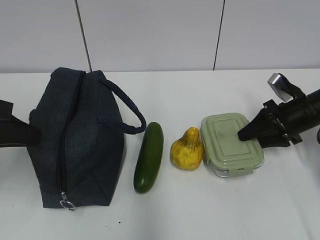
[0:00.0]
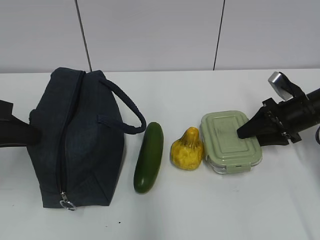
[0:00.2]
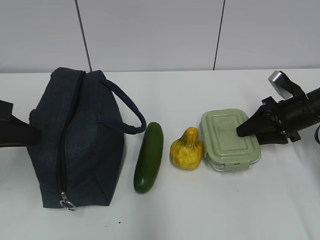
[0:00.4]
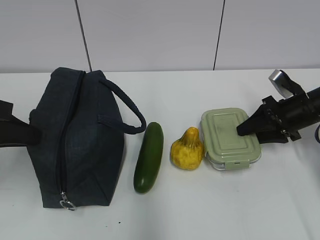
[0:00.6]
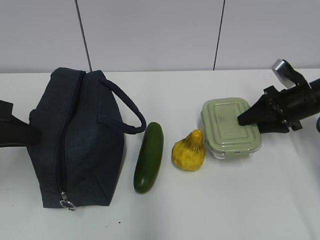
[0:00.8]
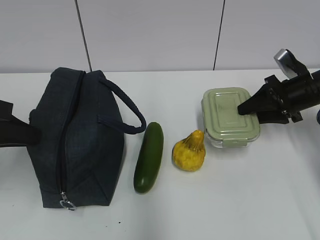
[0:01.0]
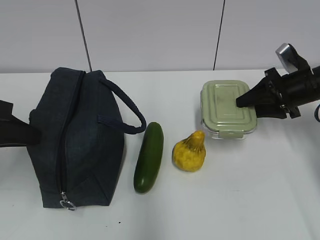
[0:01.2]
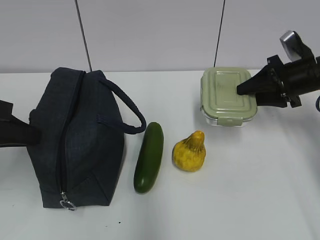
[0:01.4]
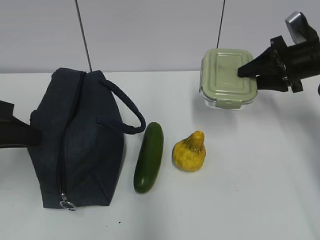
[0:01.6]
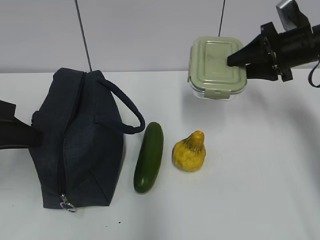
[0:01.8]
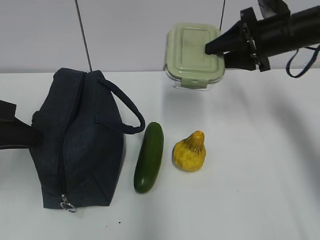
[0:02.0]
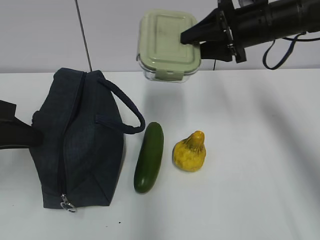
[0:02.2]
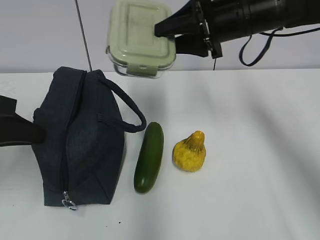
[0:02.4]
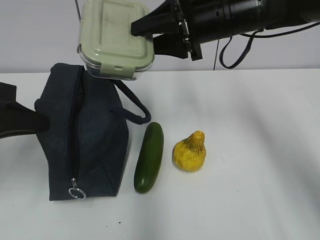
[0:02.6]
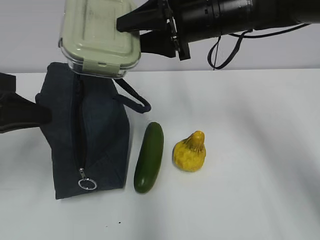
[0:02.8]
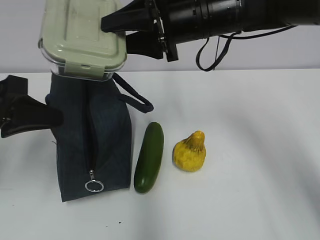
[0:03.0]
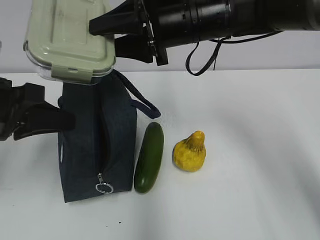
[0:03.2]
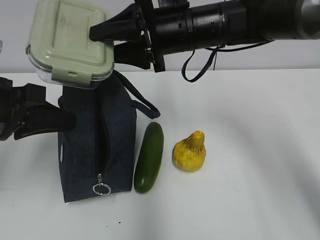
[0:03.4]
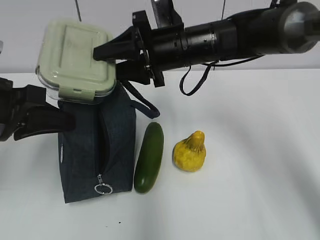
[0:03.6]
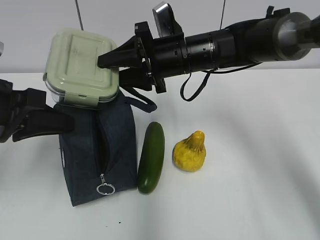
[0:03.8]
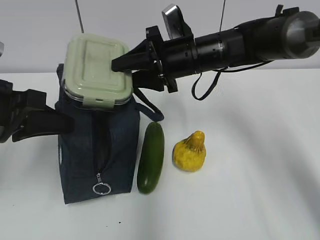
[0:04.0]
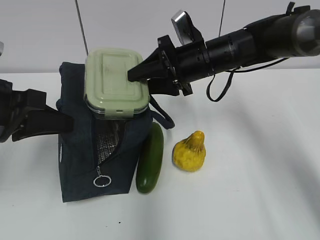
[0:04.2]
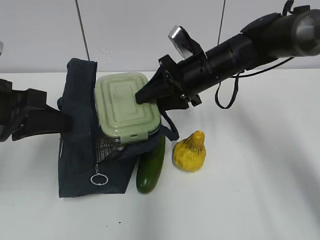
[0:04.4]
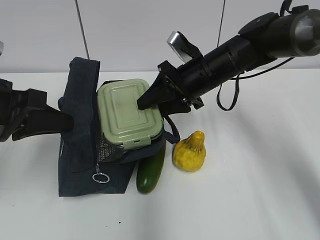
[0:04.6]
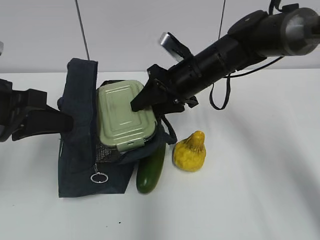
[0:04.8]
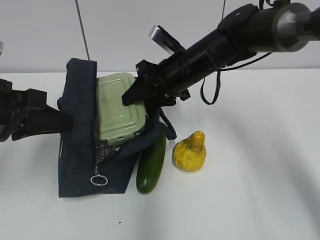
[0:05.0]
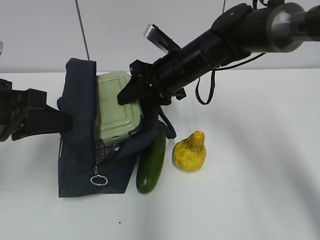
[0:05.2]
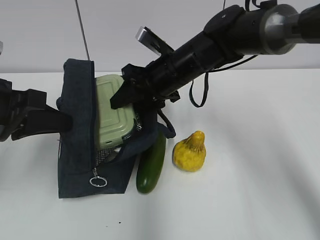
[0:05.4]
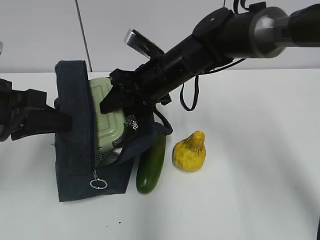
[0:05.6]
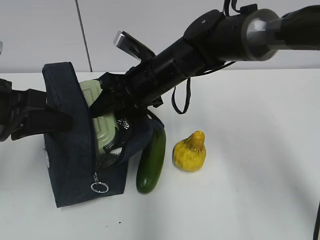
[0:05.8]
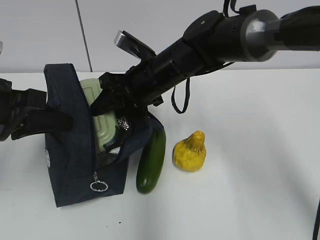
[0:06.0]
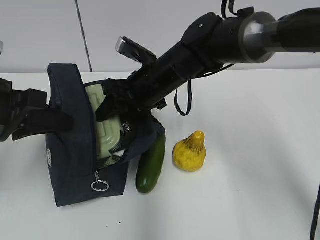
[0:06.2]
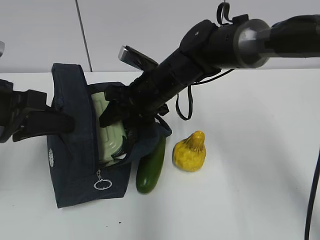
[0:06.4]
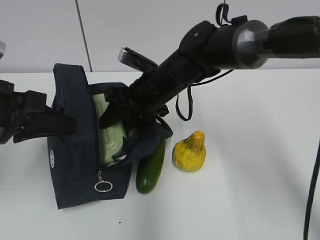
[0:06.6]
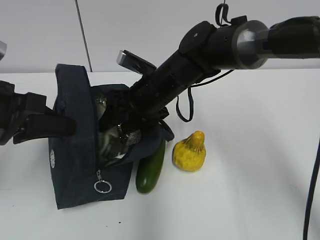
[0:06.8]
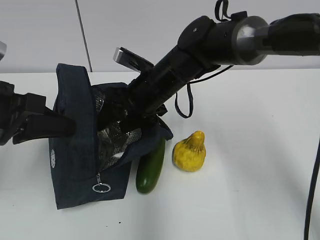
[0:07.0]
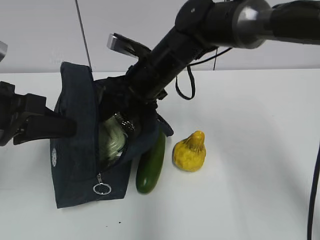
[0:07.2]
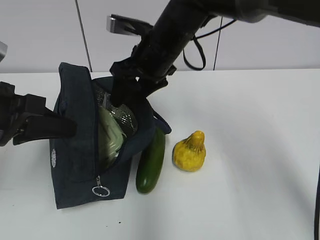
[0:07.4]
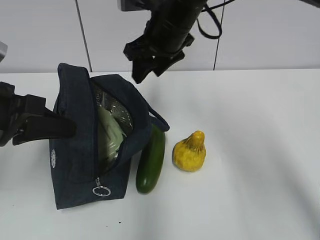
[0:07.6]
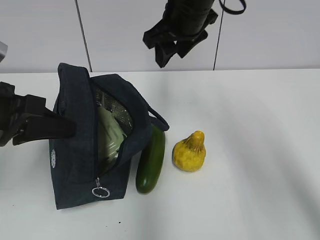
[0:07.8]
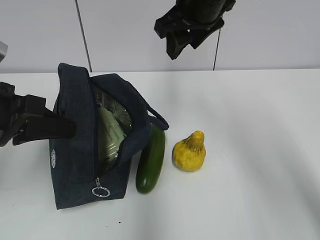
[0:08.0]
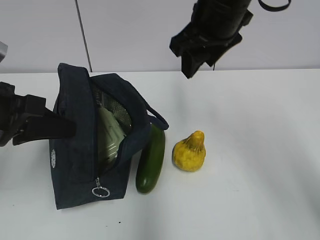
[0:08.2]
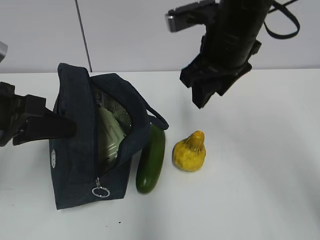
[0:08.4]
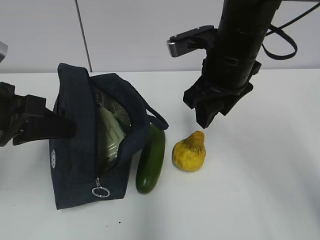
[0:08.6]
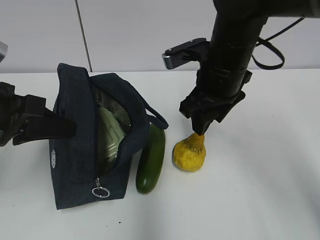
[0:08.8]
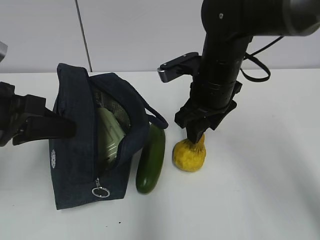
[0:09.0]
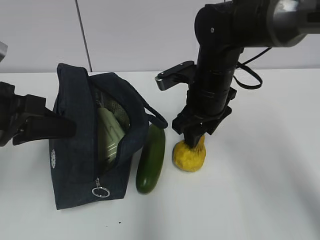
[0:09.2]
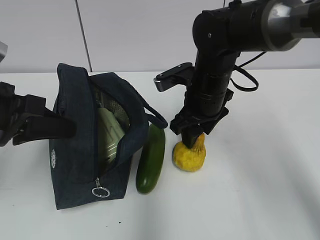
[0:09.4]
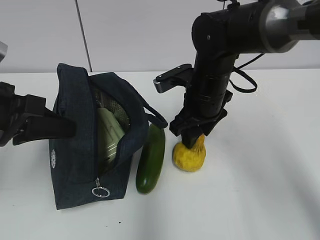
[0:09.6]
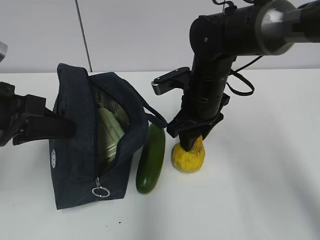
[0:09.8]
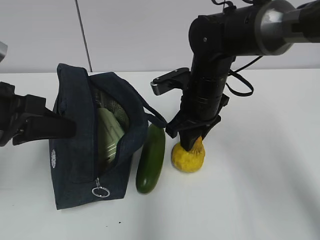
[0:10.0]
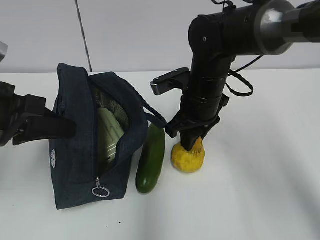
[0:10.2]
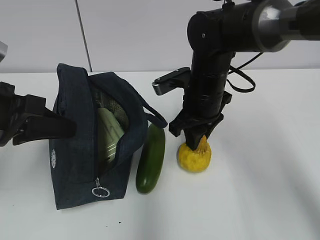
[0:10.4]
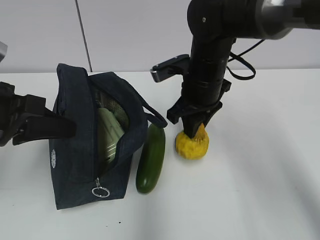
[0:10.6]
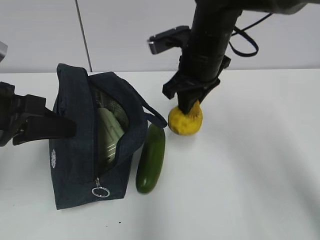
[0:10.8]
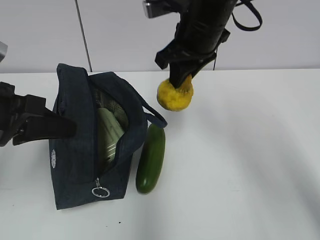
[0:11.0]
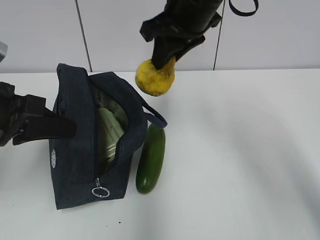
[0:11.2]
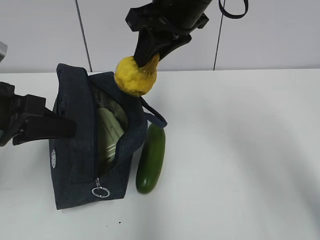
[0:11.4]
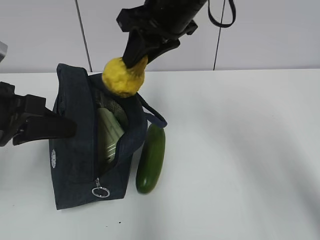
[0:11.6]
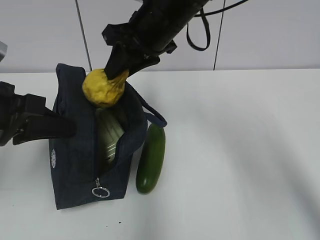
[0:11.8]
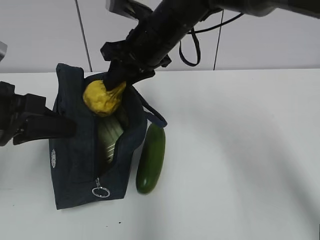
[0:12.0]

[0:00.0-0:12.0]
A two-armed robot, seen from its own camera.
Step, 0:04.0 to 0:07.2: Place it into the bag with your right hand.
Step, 0:07.4 to 0:10.0: Grab the pear with your right hand.
0:00.0 to 0:01.6: The right gripper goes roughly 10 cm upward.
0:01.6 to 0:03.0: The right gripper travels to the left and upward by about 25 cm.
0:03.0 to 0:04.4: The right gripper shifts some 10 cm downward.
0:04.4 to 0:06.0: The right gripper goes some 10 cm to the left.
0:06.0 to 0:07.6: The right gripper moves upward, approximately 10 cm.
0:07.6 to 0:09.0: The right gripper travels downward, backward and to the right by roughly 10 cm.
0:09.0 to 0:10.4: The right gripper closes up.
0:10.4 to 0:12.0: The right gripper shifts some 10 cm upward and to the left.

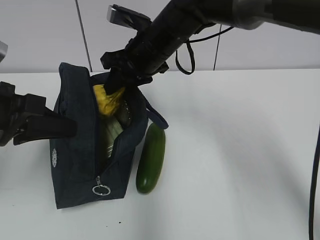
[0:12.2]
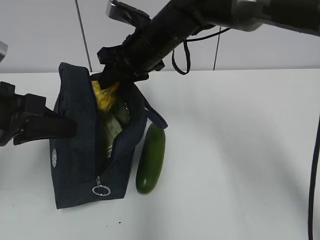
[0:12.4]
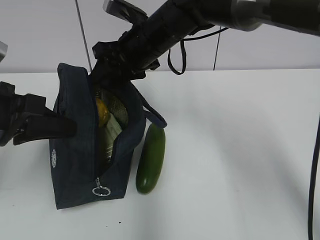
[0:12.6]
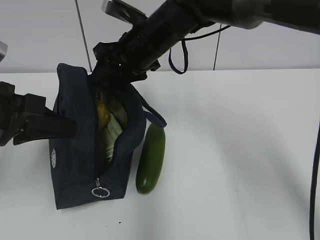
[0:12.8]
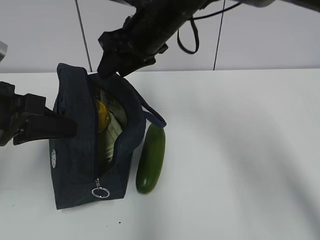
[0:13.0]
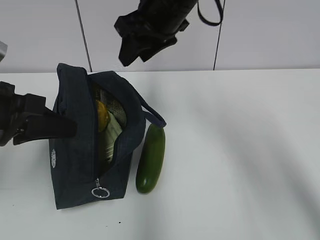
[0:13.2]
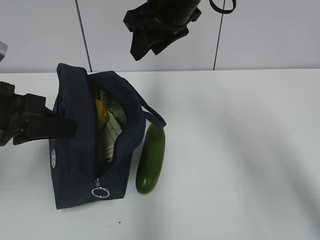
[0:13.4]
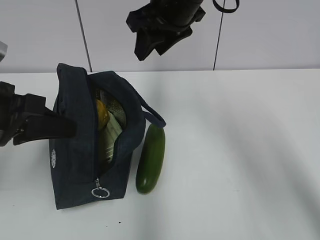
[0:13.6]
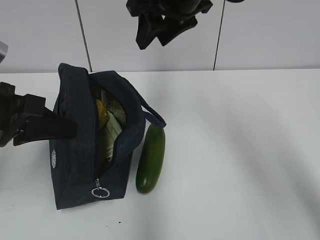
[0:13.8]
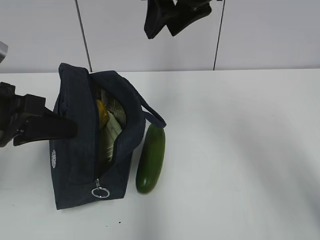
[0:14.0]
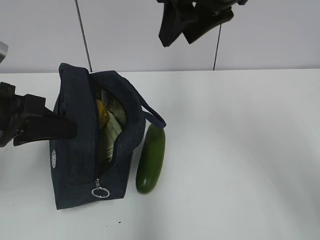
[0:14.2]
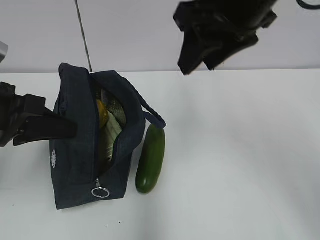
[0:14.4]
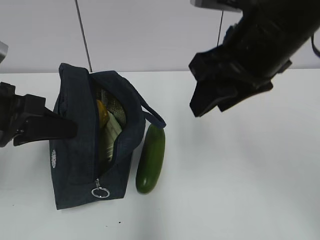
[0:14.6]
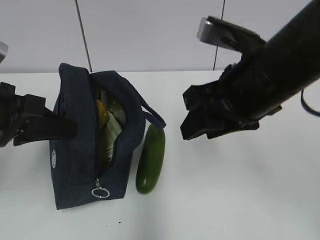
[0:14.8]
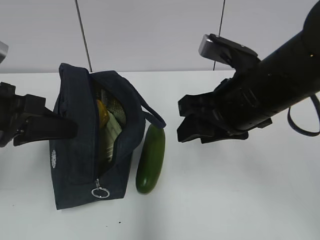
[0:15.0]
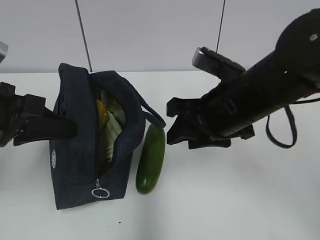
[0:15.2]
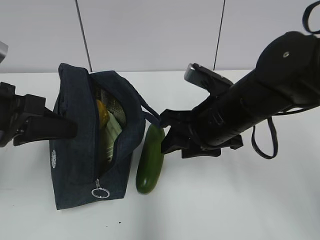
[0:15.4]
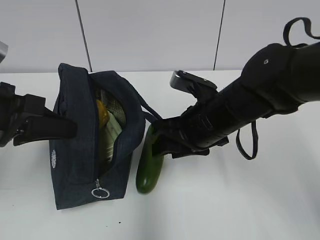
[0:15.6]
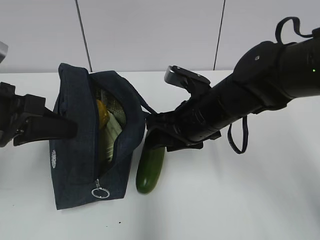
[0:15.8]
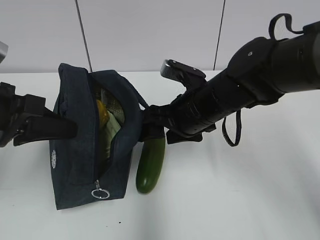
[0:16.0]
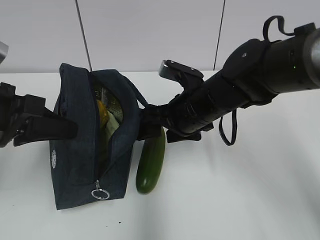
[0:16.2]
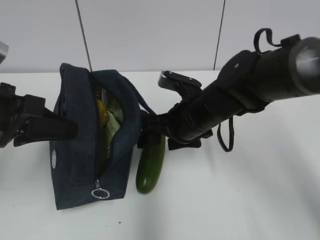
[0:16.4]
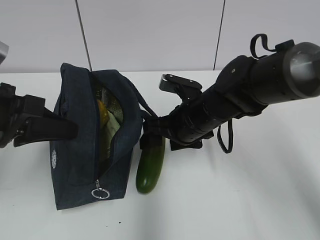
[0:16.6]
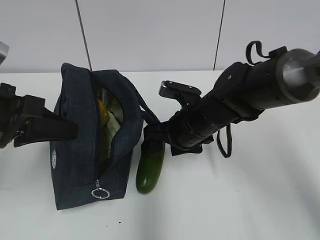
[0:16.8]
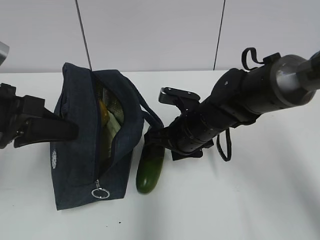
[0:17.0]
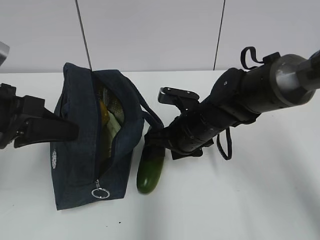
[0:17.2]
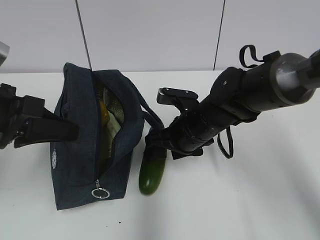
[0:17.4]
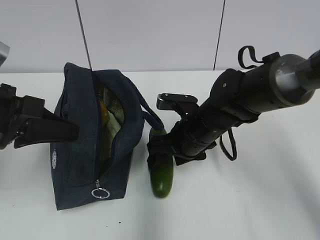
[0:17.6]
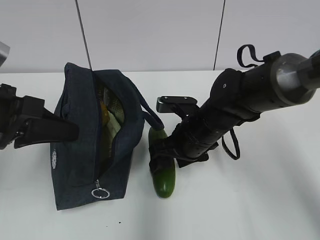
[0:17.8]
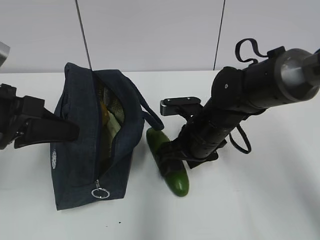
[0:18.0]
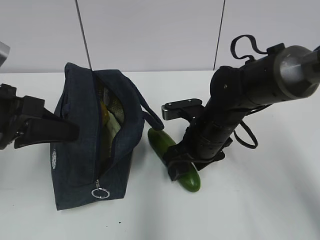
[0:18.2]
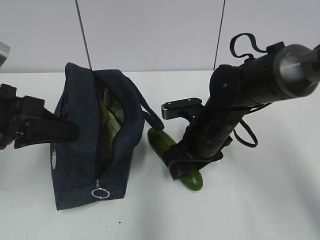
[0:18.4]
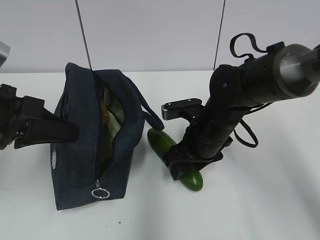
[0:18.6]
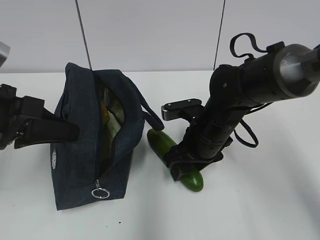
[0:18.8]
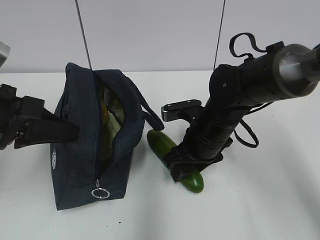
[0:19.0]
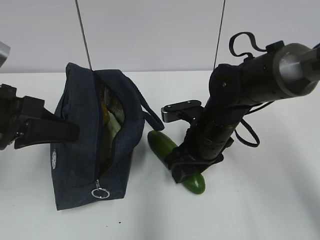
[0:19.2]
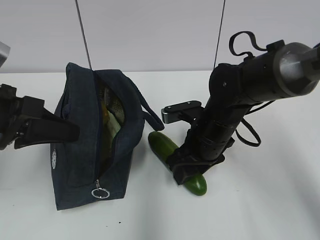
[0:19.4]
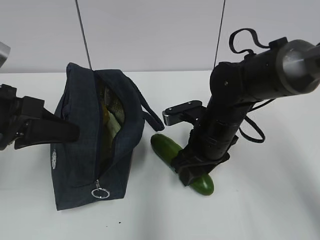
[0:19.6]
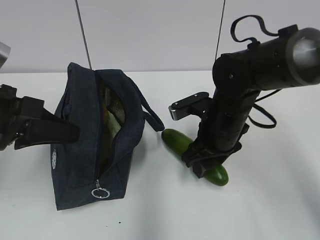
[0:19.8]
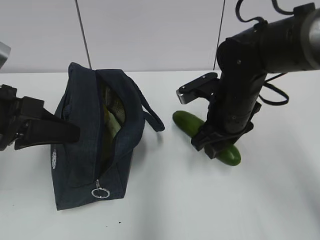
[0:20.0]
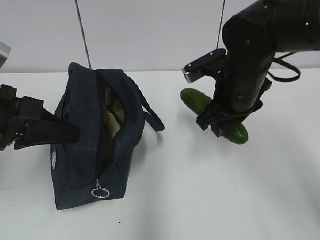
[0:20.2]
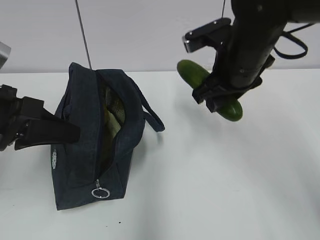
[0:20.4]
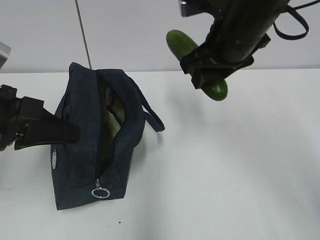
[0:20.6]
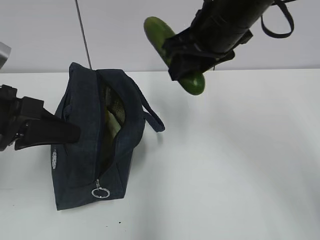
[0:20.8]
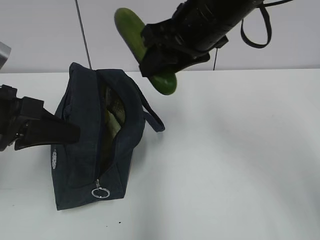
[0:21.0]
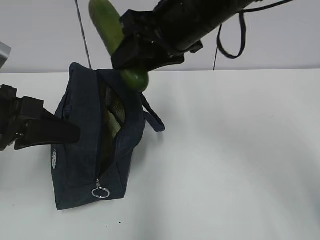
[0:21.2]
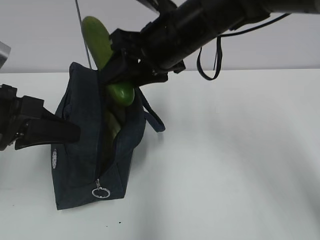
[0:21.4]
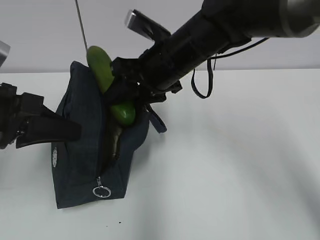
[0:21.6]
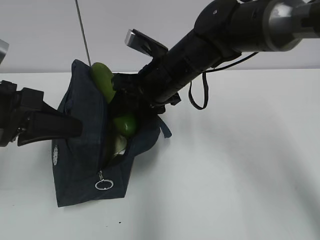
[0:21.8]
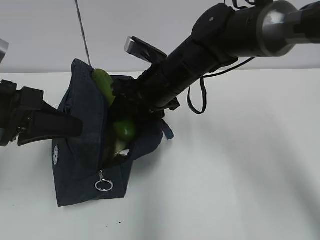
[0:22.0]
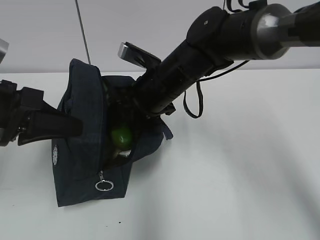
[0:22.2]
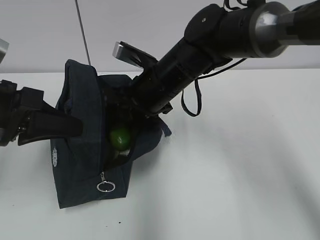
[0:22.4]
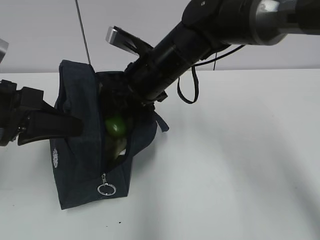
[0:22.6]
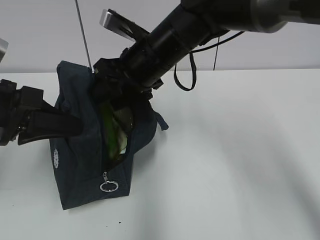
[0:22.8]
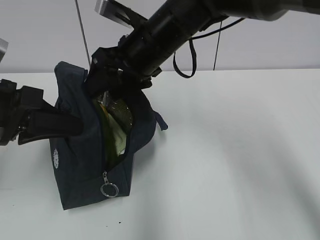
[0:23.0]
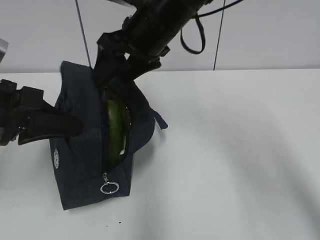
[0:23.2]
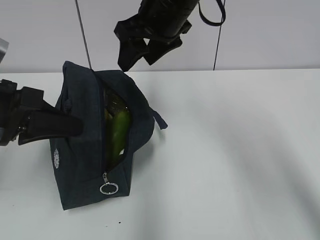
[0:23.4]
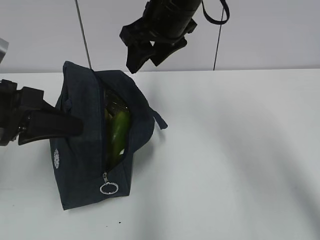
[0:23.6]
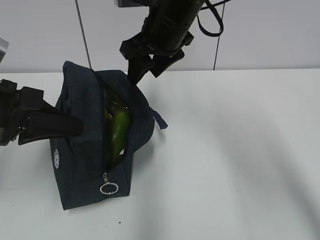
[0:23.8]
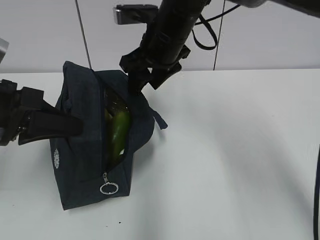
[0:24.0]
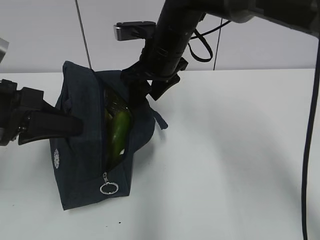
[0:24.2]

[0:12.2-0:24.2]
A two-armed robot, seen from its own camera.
Step, 0:13.0 to 0:19.0: Grab the cucumber with your right hand.
0:12.2 to 0:13.8: The right gripper shifts approximately 10 cm upward.
0:13.8 to 0:15.2: The right gripper is displaced downward and backward by about 15 cm.
0:15.2 to 0:16.6: The right gripper is displaced downward and forward by approximately 10 cm, and opens.
0:18.2 to 0:19.8: There are only small adjustments of the grippers.
0:19.8 to 0:21.2: The right gripper heads upward, covering roughly 20 cm.
0:21.2 to 0:22.6: The right gripper shifts some 10 cm downward.
0:22.6 to 0:24.2: The right gripper reaches some 10 cm upward, then returns.
